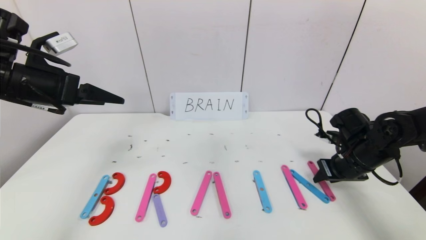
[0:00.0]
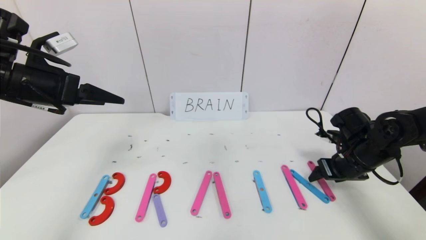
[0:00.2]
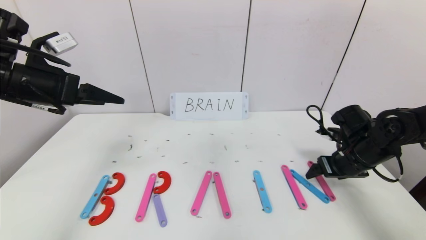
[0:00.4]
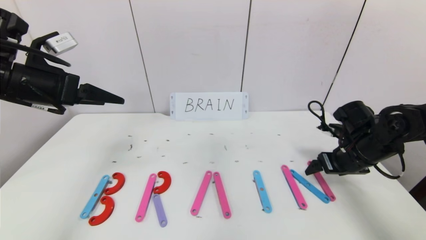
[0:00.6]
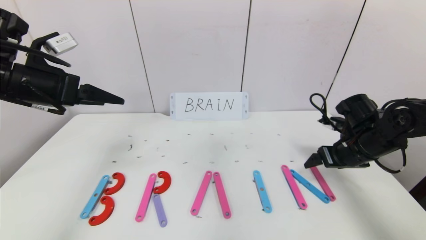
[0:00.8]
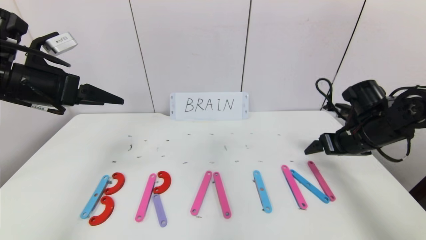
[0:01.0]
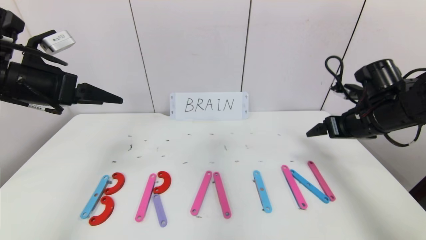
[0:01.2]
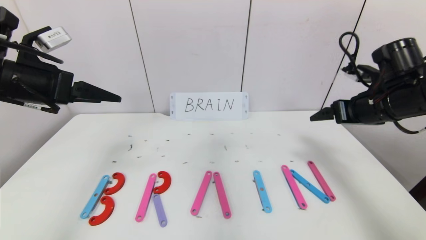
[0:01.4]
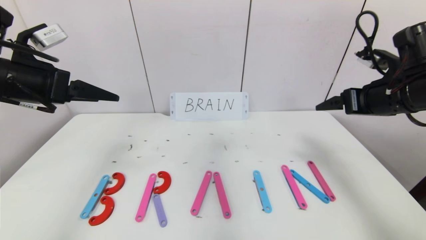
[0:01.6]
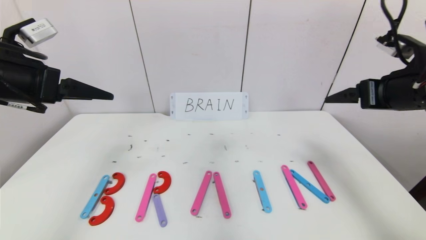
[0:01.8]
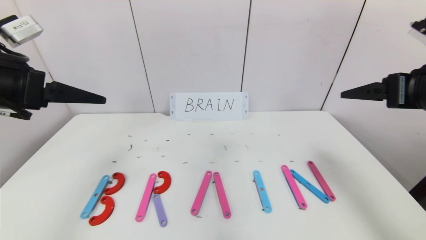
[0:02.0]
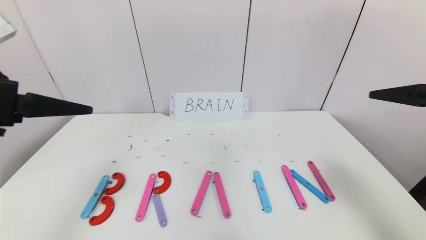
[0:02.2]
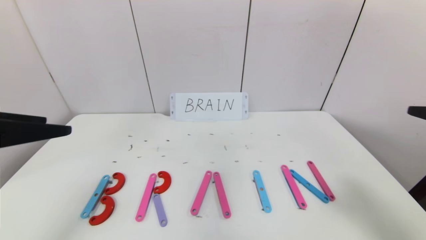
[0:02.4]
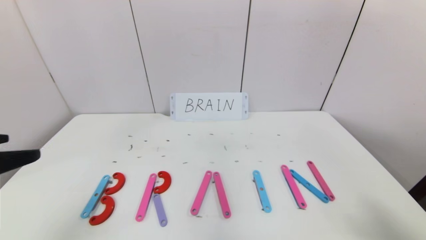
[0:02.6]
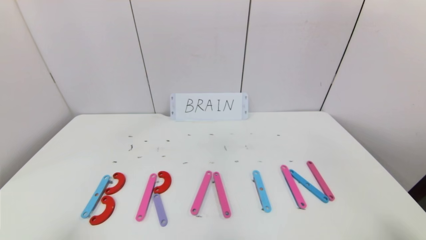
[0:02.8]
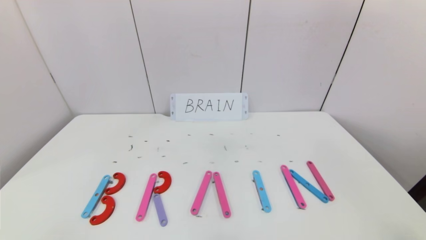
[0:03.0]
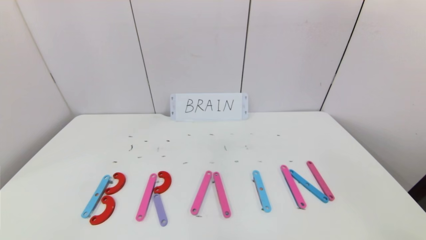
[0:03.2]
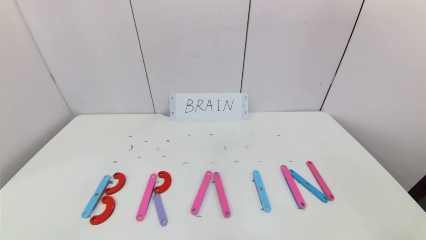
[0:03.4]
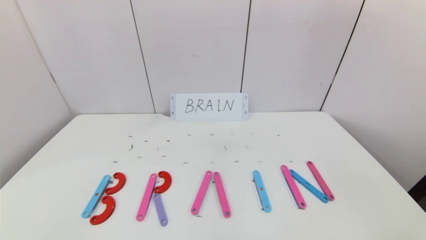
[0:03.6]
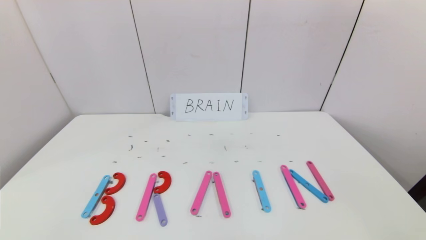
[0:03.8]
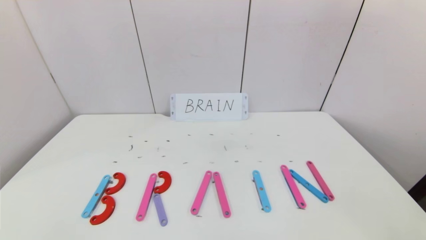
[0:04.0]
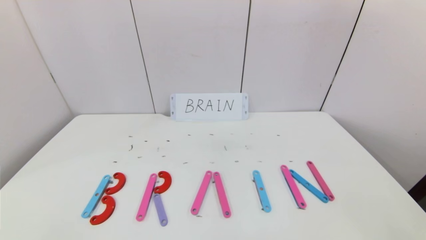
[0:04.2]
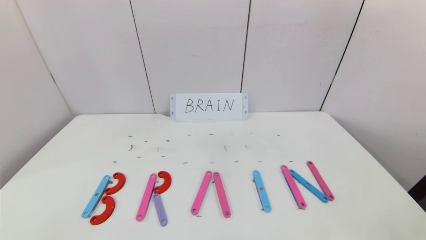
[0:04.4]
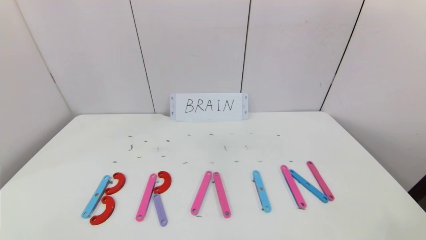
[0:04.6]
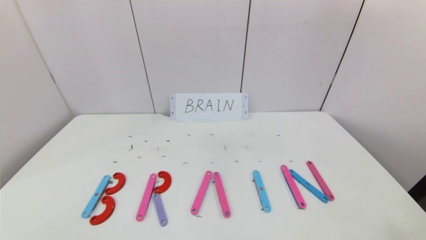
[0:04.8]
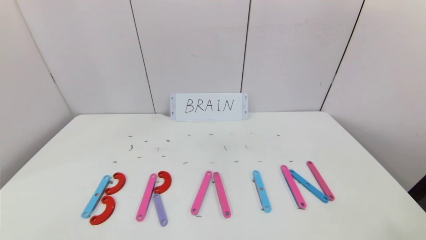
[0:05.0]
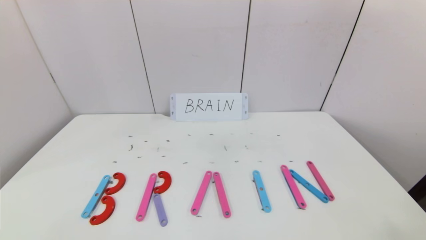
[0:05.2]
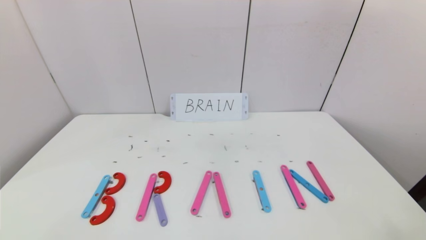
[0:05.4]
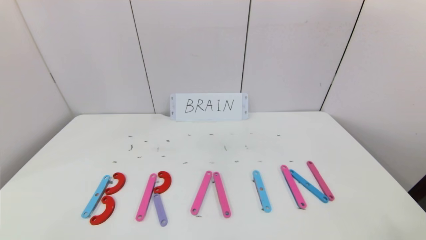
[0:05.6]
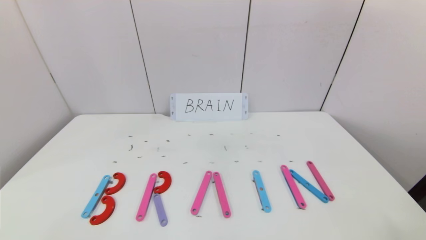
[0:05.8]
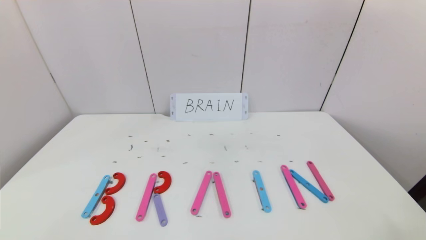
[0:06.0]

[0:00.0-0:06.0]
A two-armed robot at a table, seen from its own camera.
Task of the whole recording: rearrange the word baai as brain.
0:00.0 to 0:01.6: The right gripper travels upward by some 15 cm, and opens up.
0:01.6 to 0:03.0: The grippers both shift backward by roughly 30 cm.
